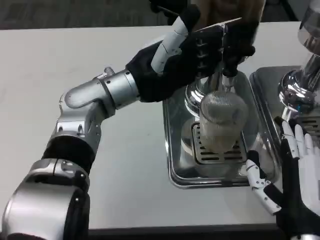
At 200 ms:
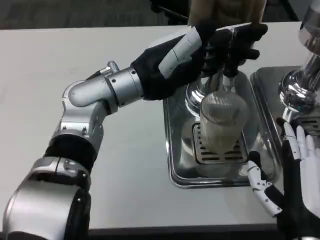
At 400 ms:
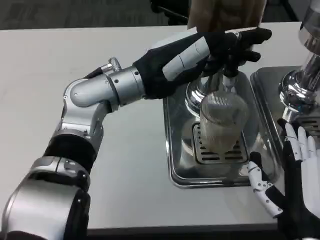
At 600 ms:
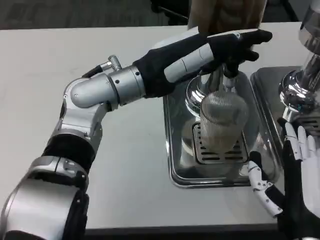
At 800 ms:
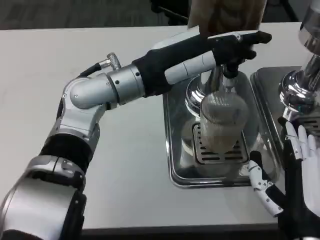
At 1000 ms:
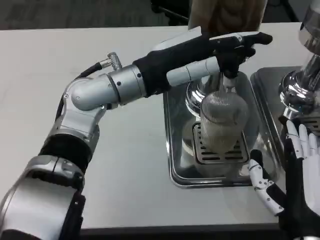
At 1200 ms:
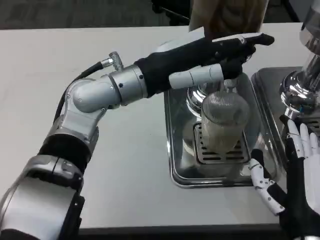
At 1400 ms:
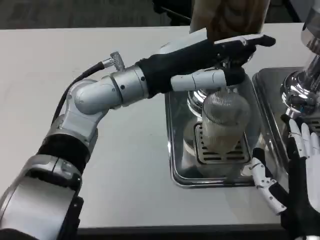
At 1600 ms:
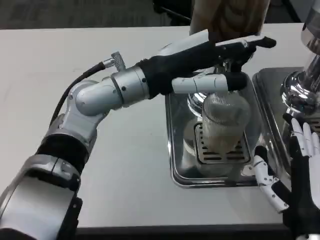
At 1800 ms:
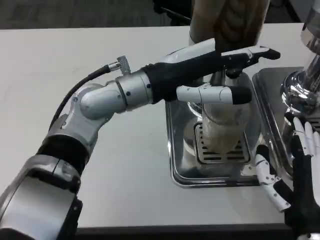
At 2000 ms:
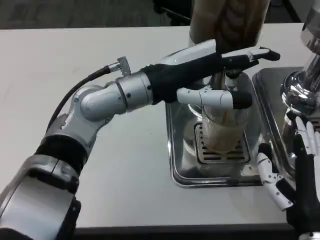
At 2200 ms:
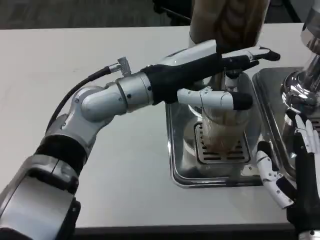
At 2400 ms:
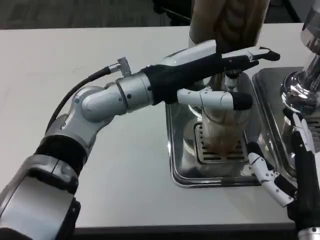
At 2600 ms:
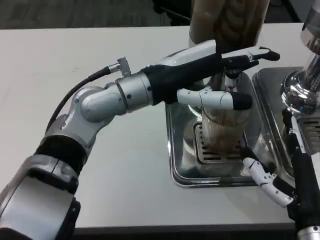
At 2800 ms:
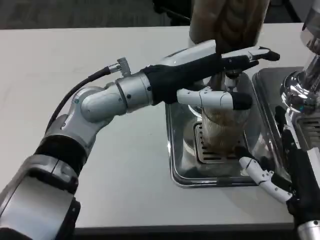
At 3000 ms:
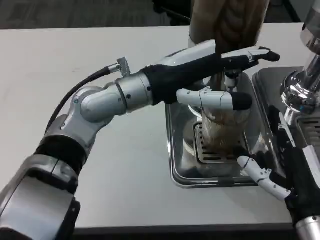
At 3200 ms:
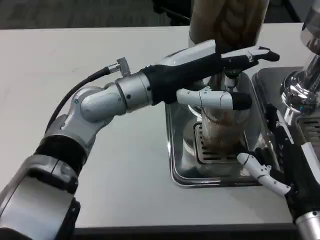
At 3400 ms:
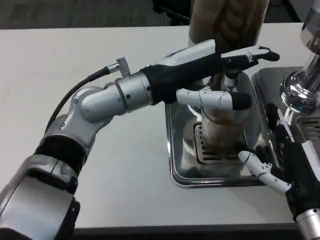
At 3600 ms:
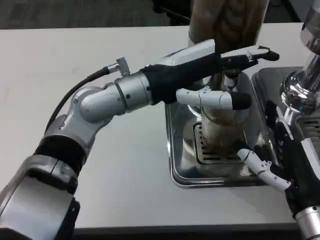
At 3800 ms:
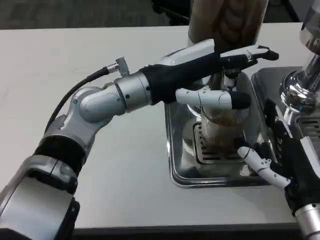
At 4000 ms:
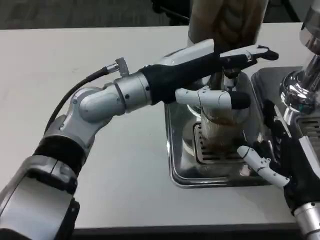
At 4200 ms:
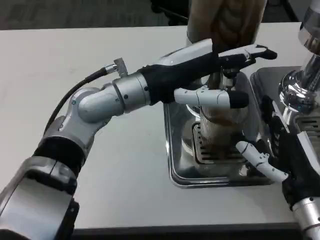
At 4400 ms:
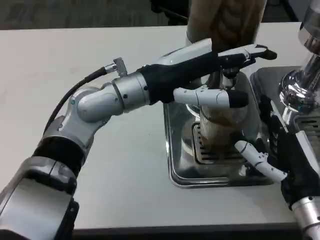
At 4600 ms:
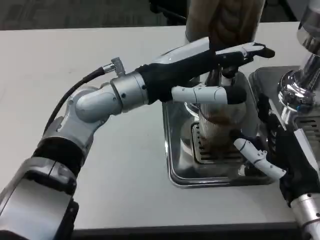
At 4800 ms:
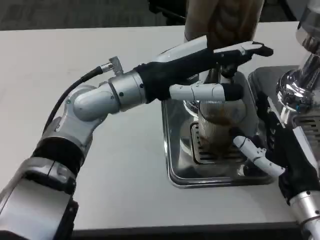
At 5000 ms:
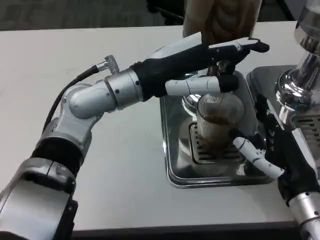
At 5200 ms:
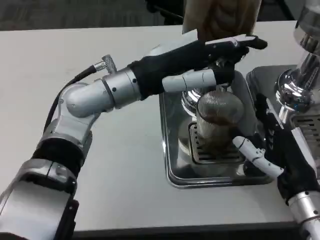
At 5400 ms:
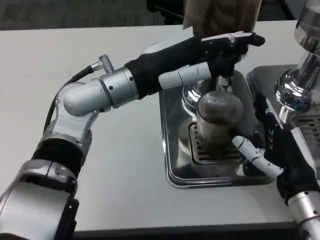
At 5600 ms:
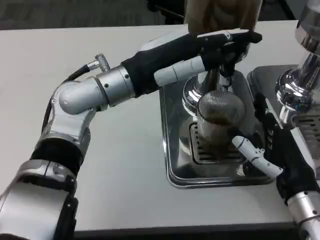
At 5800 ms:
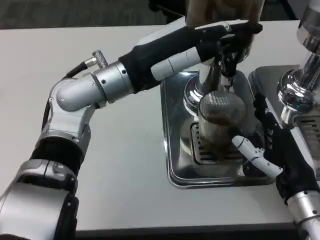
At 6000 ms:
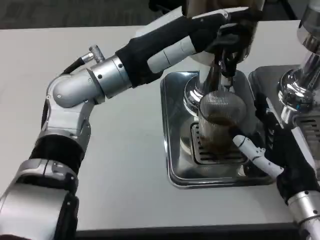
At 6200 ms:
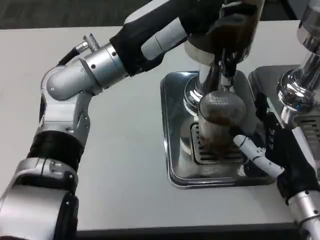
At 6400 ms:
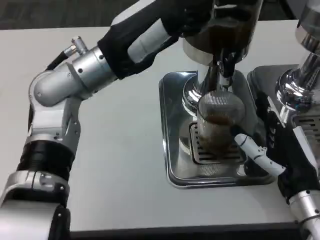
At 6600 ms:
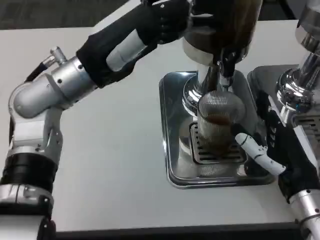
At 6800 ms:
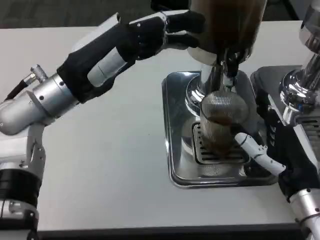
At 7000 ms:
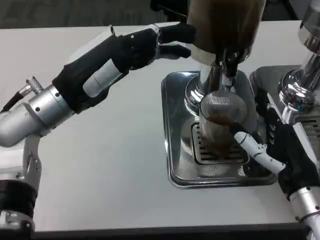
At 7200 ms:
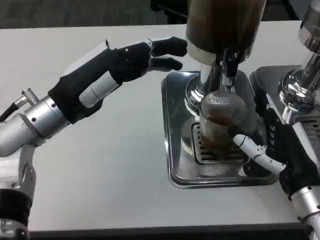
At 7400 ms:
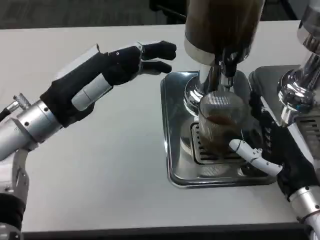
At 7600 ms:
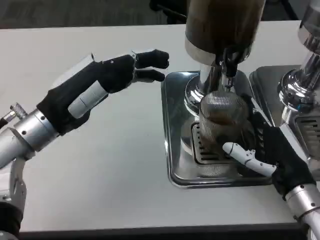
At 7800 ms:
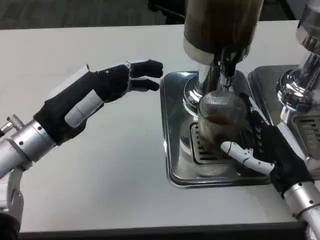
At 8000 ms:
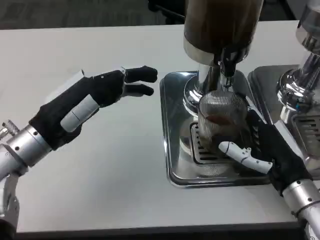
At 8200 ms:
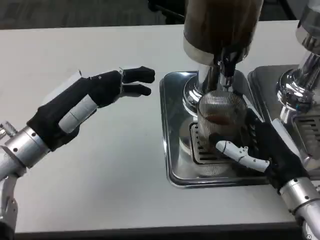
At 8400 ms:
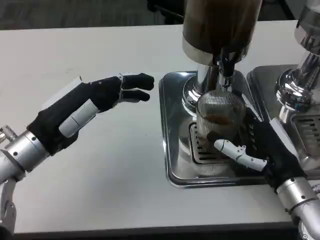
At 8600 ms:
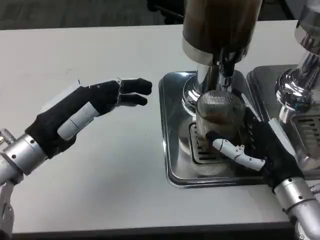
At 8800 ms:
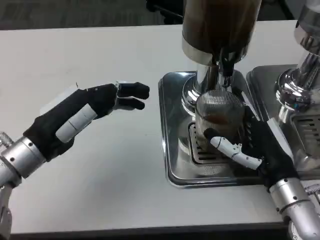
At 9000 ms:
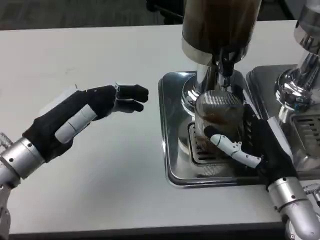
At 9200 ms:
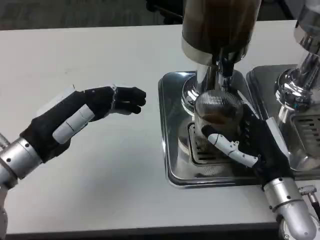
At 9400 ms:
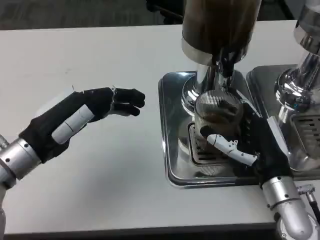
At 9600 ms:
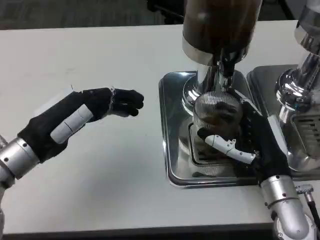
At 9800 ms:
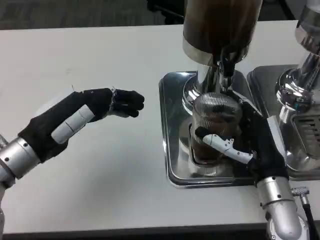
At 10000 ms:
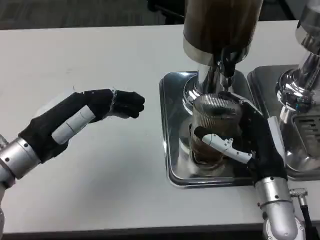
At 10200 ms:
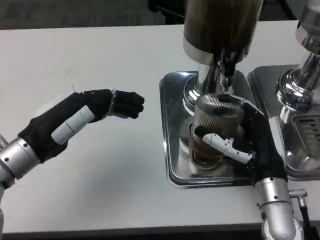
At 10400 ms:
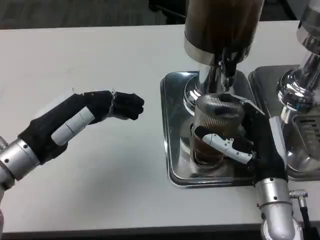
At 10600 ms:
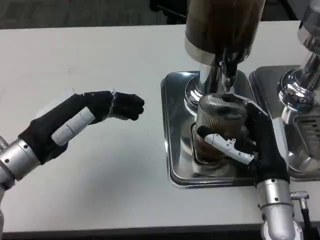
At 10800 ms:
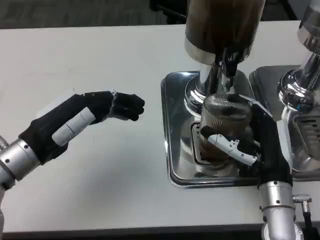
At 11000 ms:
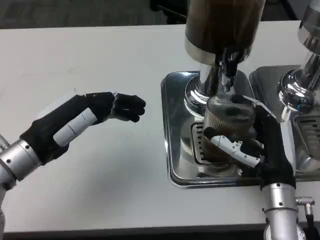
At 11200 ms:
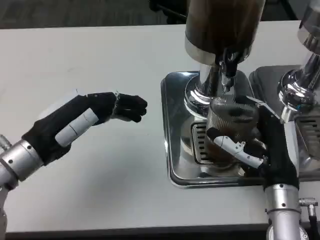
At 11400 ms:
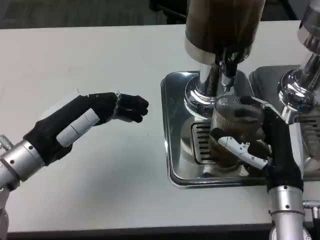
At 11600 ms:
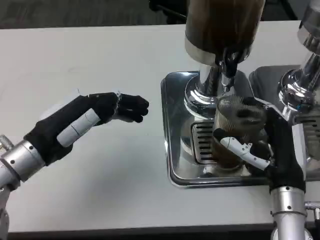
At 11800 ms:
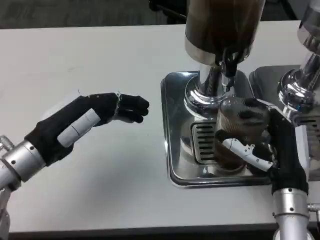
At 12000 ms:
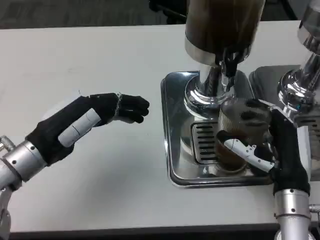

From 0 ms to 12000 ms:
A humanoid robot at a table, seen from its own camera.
Task of the whole recording: Grasp the cup under the faucet to collect the drink, then remove the cup.
From 3000 ms to 4400 ms: The hands stay close to where they were, moving slightly.
From 6000 ms to 7600 ms: The left hand shifts approximately 15 cm to the left, backward and downward.
From 9000 ms to 10400 ms: The hands make only small movements.
From 10400 ms to 12000 ms: There are only small adjustments of the hands.

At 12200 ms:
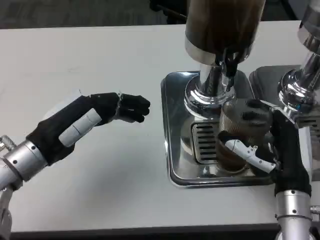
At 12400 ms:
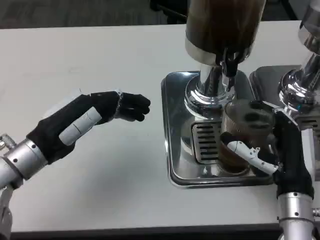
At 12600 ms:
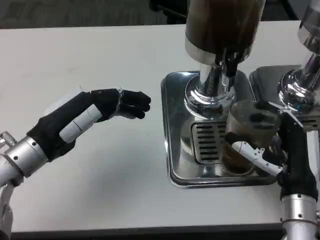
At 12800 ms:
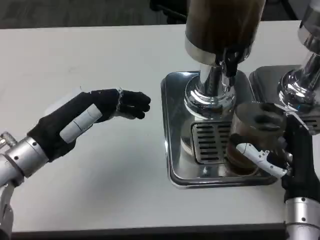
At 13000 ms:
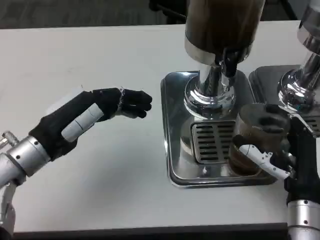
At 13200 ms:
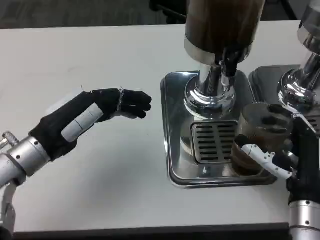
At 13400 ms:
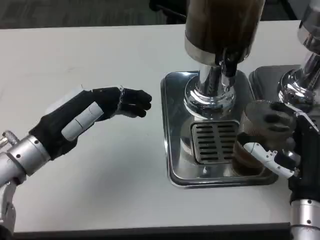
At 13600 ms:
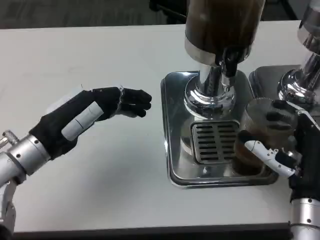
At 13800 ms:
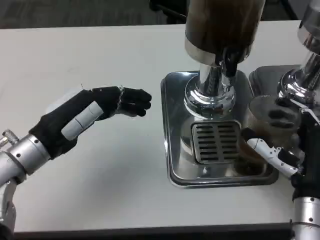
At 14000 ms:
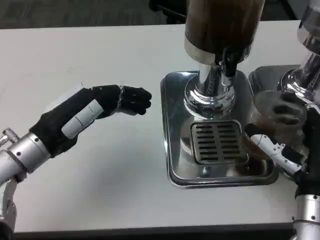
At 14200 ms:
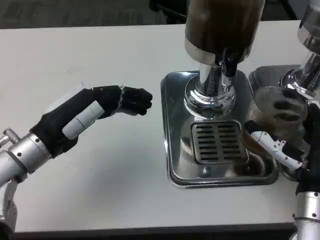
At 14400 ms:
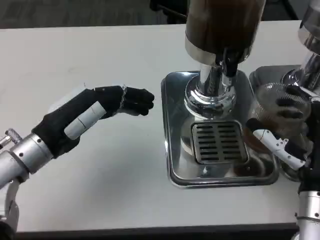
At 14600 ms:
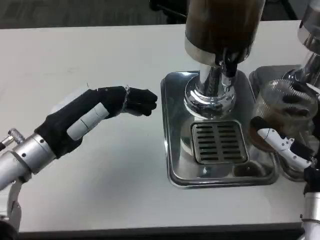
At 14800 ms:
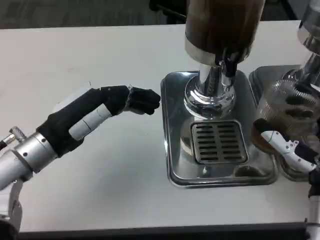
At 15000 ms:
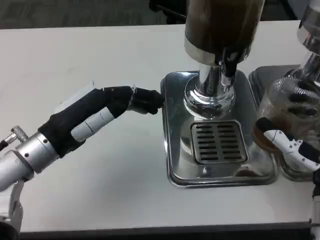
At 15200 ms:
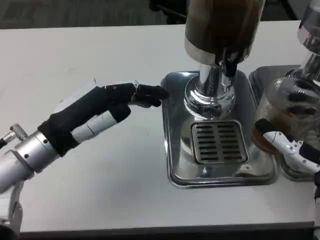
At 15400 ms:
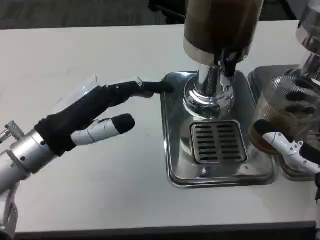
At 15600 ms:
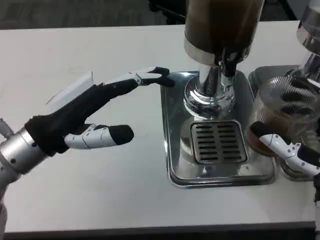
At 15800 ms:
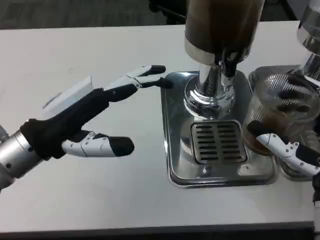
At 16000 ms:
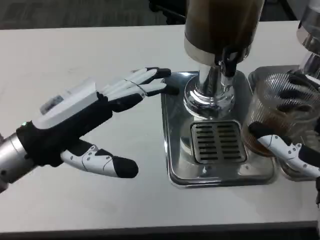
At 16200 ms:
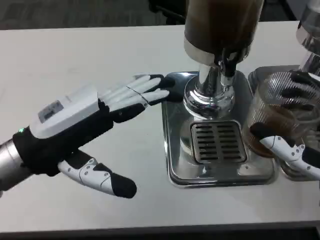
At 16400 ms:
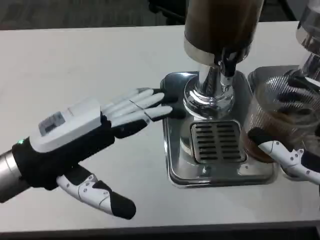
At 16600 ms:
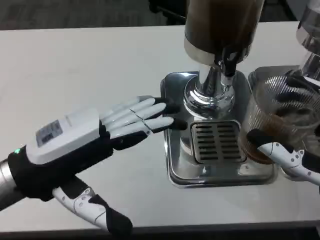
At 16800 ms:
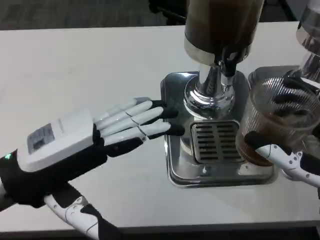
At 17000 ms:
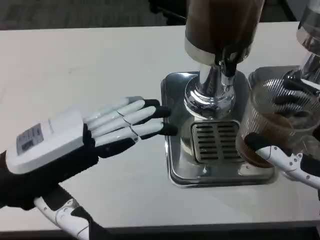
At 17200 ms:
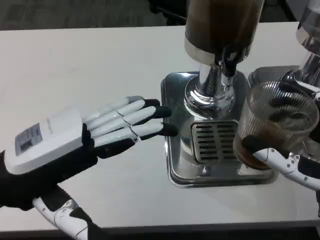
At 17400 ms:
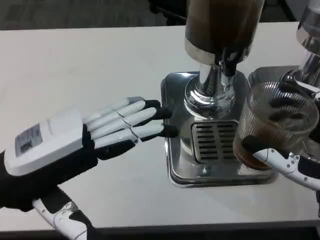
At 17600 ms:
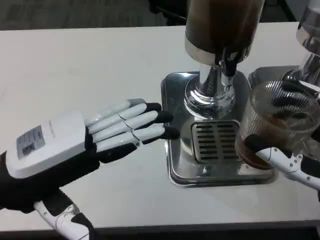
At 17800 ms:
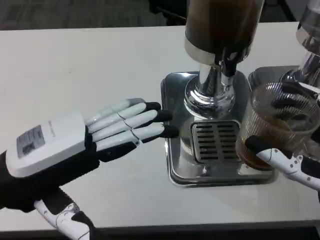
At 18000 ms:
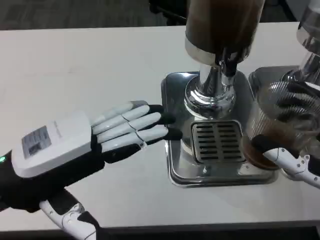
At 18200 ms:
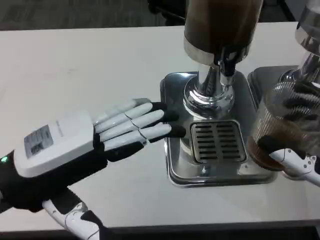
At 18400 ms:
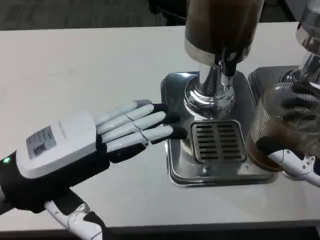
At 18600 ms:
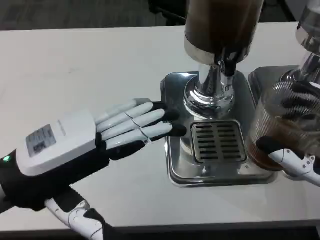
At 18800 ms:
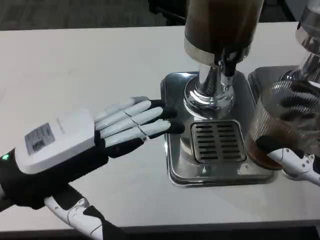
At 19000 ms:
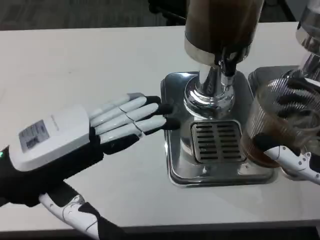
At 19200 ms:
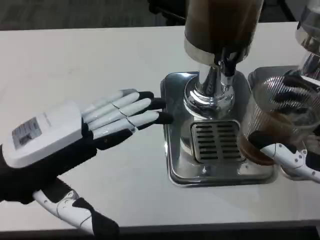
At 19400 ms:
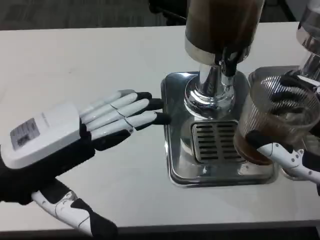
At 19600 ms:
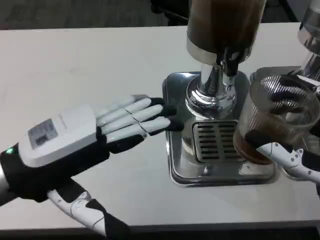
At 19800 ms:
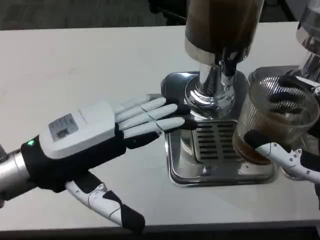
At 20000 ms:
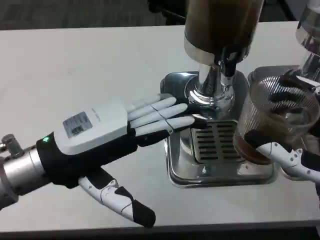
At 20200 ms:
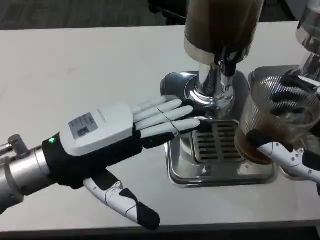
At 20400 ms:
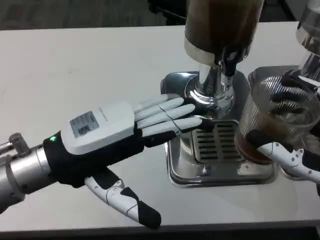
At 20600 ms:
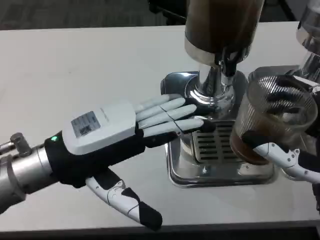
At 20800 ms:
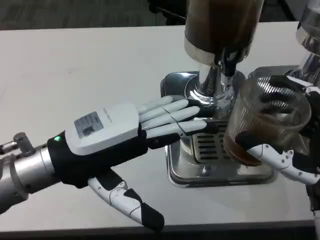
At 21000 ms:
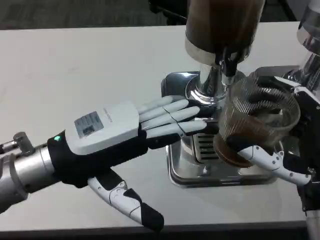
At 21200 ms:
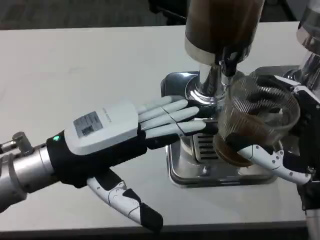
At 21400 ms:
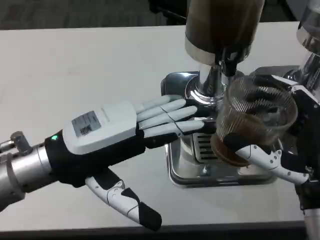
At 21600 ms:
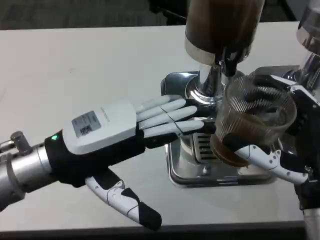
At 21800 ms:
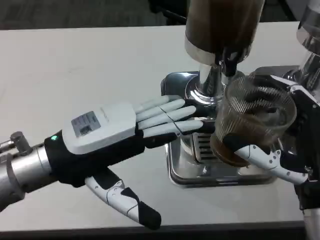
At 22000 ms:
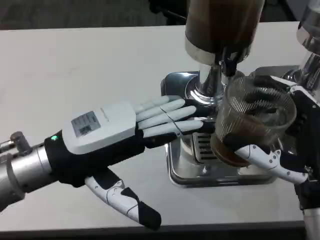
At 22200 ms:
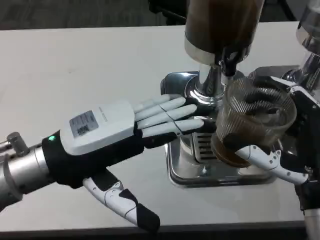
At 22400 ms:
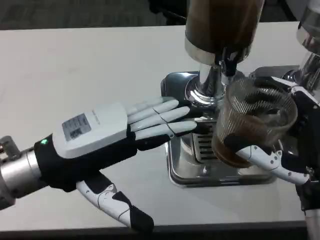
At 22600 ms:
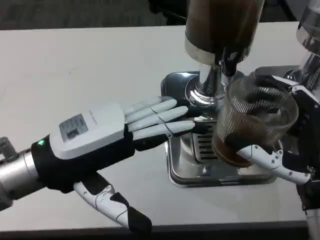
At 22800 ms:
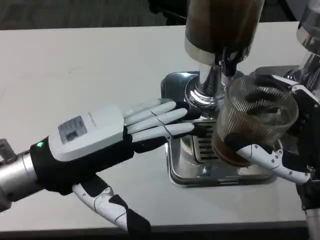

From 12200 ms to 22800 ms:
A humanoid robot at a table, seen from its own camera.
Task of the whole recording: Grasp the cup under the faucet to collect the drink, then remove the cup.
From 12200 ms to 15200 ms: There are only small adjustments of the hands.
From 15200 ms to 16800 ms: The right hand changes place by approximately 5 cm. The left hand heads backward and upward, covering roughly 10 cm.
From 16800 ms to 18200 ms: There are only small adjustments of the hands.
From 21200 ms to 22800 ms: The hands make only small movements.
